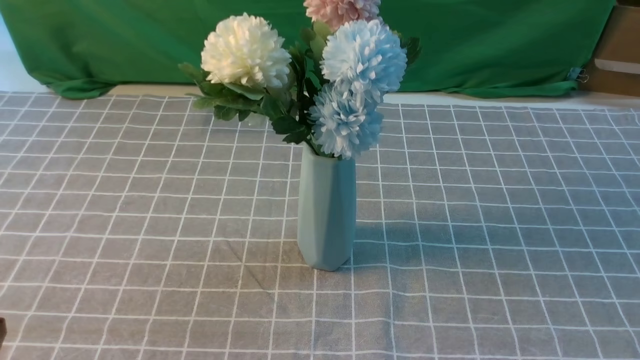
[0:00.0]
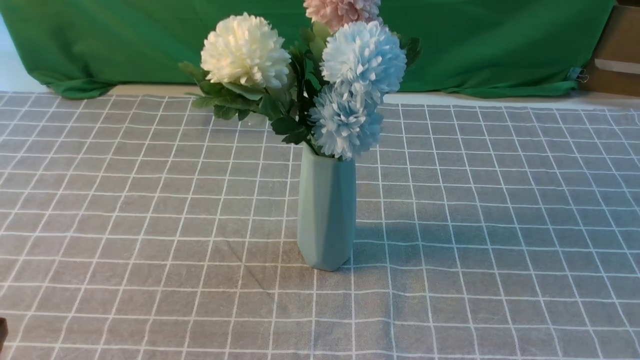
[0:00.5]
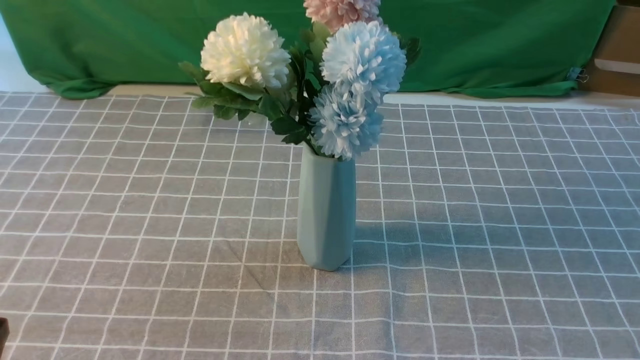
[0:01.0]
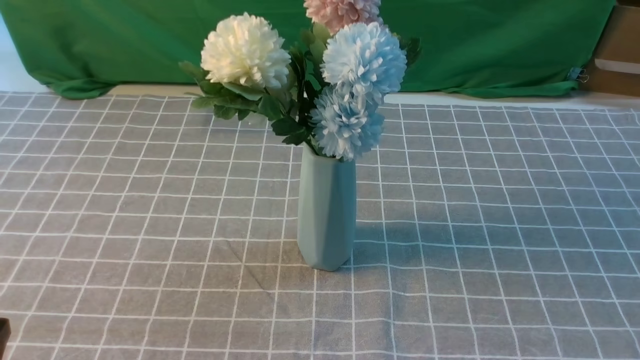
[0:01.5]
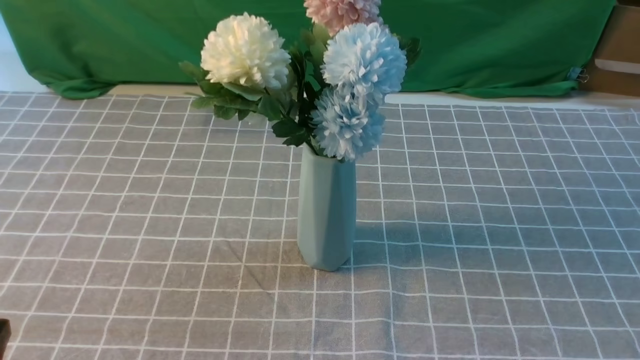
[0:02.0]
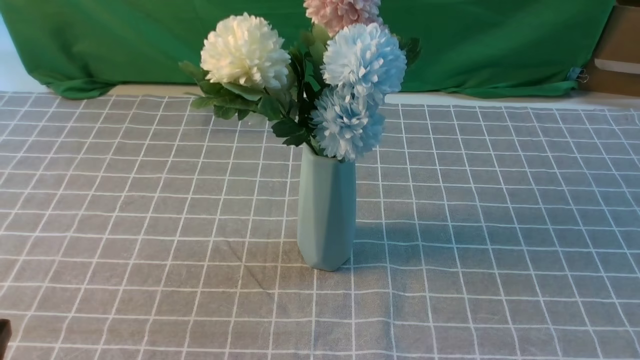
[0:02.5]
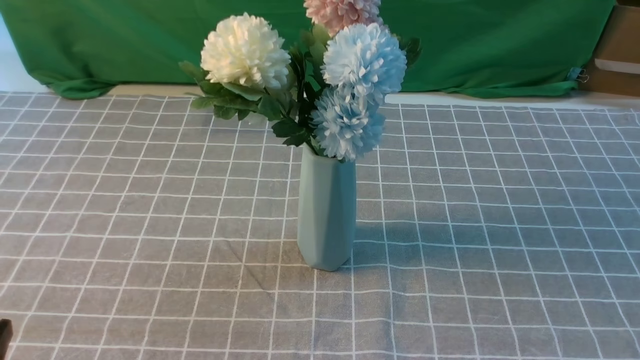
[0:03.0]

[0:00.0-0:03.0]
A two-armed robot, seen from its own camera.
Task of the whole recording: insert the flowers into the vase on the table with the grey tablecloth.
0:00.0 to 0:01.5: The right gripper moves downward, about 10 cm.
